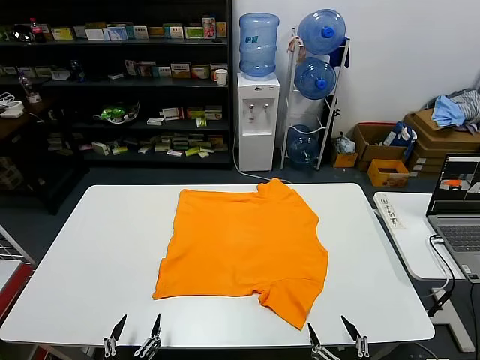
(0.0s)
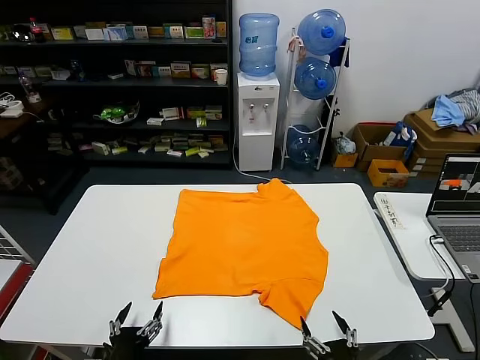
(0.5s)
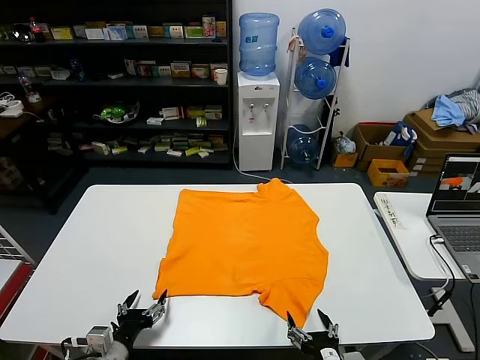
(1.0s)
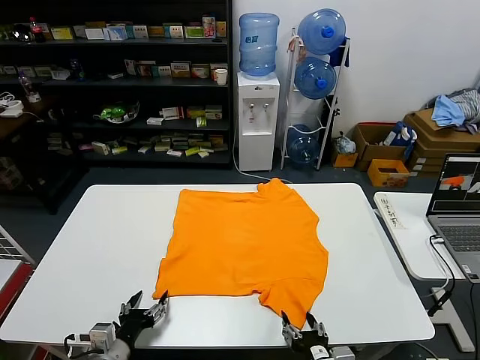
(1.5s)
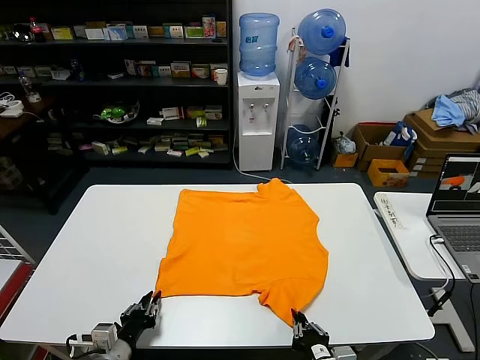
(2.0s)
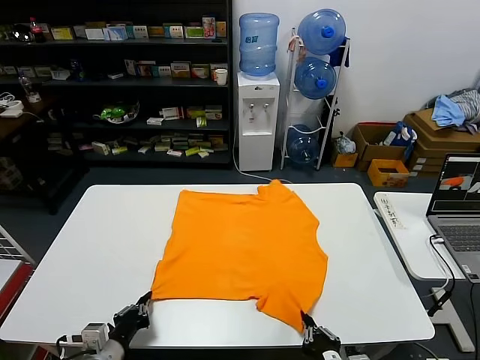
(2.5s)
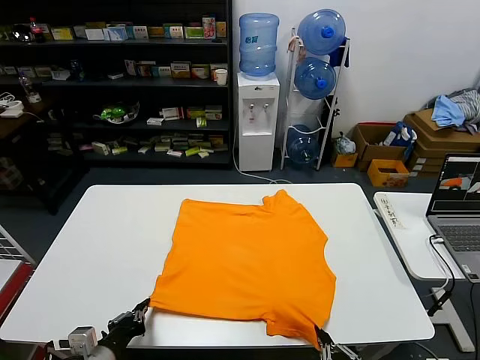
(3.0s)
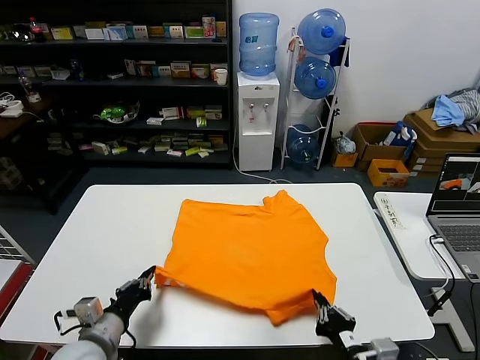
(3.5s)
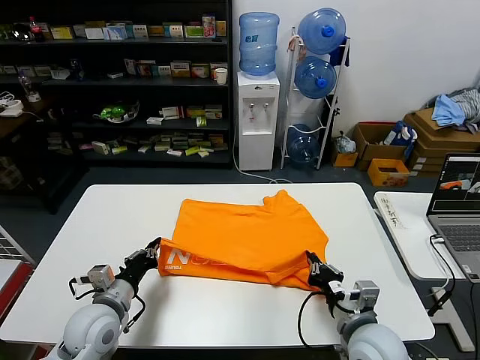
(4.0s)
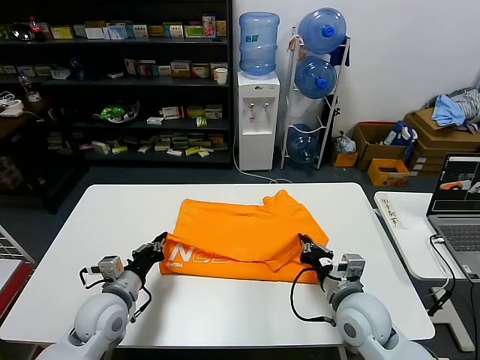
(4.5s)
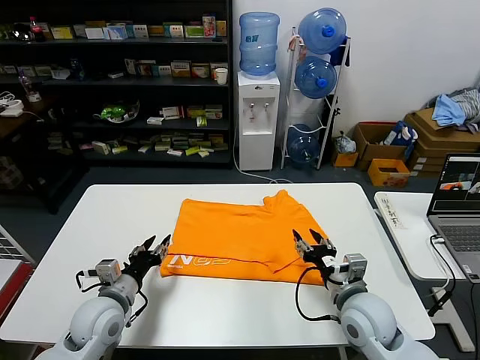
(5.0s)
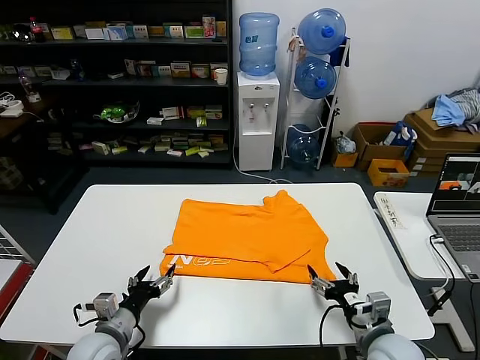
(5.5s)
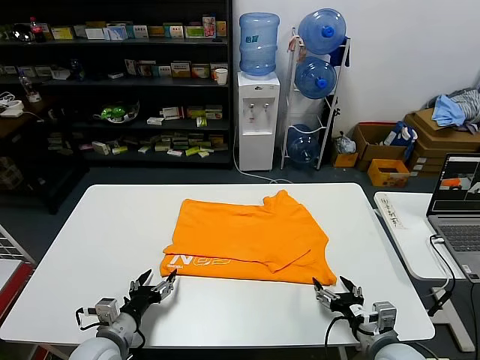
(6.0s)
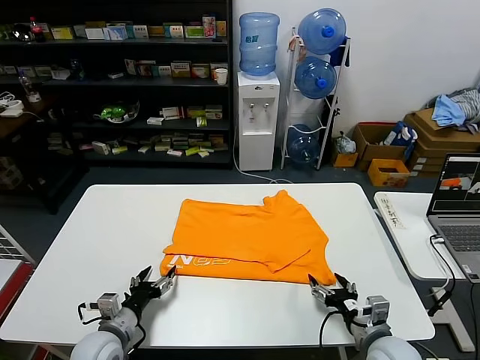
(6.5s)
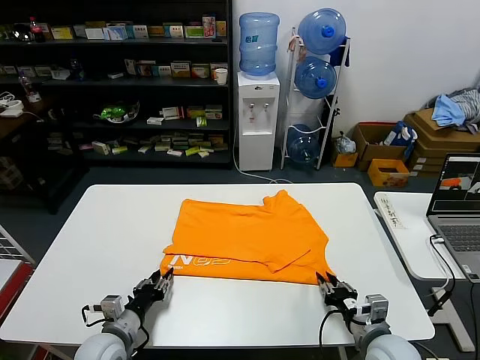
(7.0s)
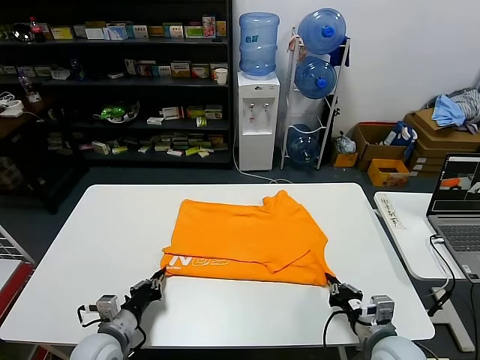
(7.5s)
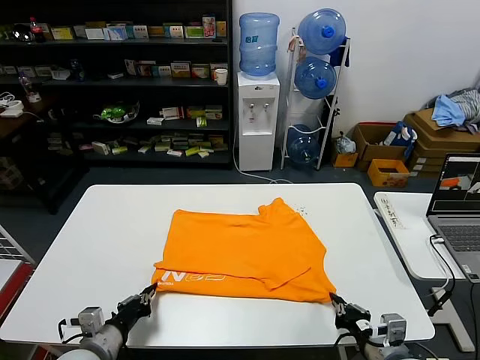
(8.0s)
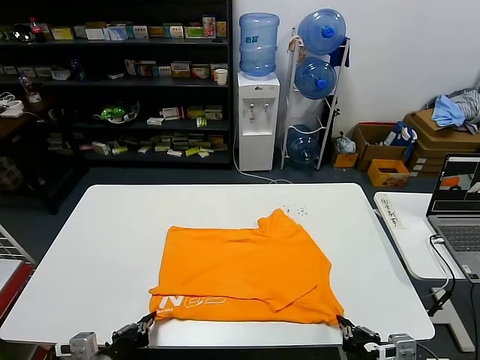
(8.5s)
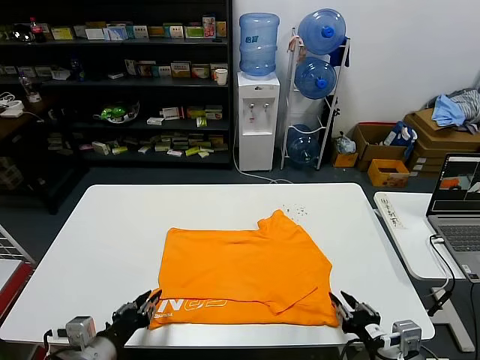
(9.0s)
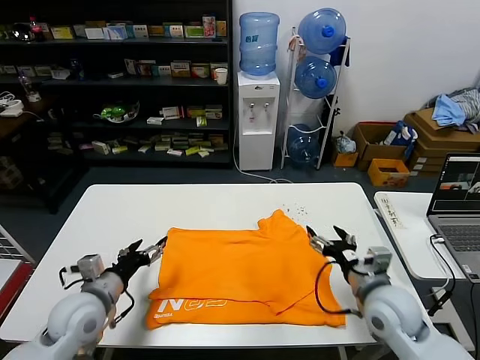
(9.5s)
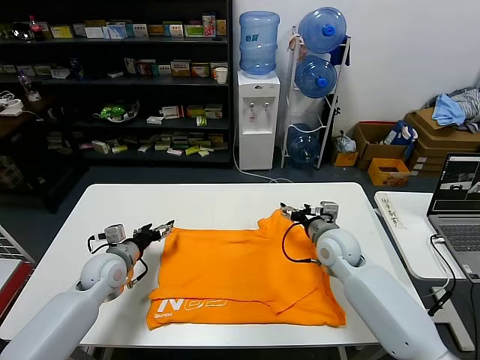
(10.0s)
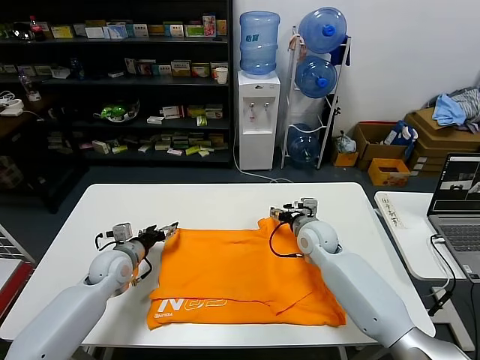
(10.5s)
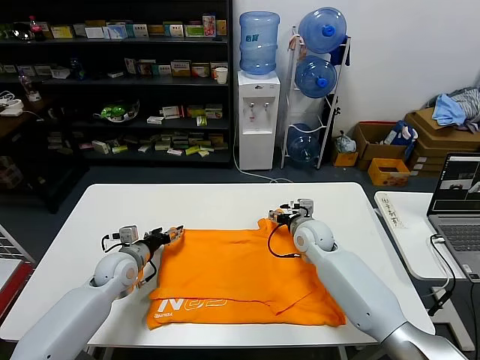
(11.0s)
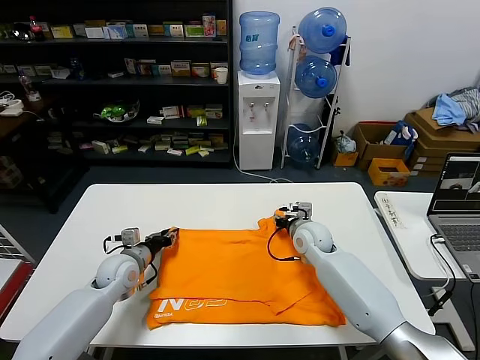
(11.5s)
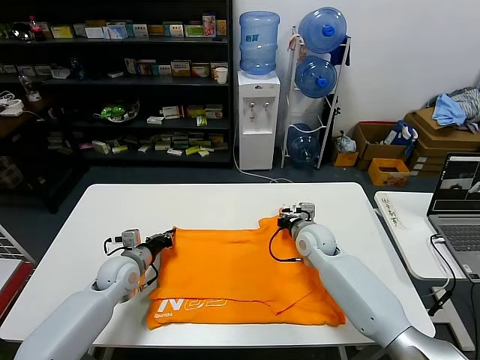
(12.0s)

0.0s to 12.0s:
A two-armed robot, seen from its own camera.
Task of the whole recording: fold and organize the clothes.
Step, 0.0s to 2.0s: use both grippers simultaneously to clamp the lower edge of the clothing fabric.
Step, 3.0s to 4.5s: use both grippers to drag the lower edge of the fabric forward and fold it over the upper edge.
Step, 5.0s to 9.0s: Drag the clothes downward with both gripper.
2.0s to 4.0s: Both grippers move forward and upward, roughly 10 cm.
4.0s to 6.0s: The left gripper moves downward, roughly 5 cm, and opens, while the right gripper travels to the right and downward by roughly 10 cm, and opens its fingers.
6.0s to 8.0s: The left gripper closes. The right gripper closes up.
8.0s to 10.0s: The two grippers go about 25 cm forward. The left gripper opens up; the right gripper opens.
10.0s to 12.0s: The left gripper closes its fingers. Meanwhile the right gripper changes place by some 5 cm, and closes its fingers.

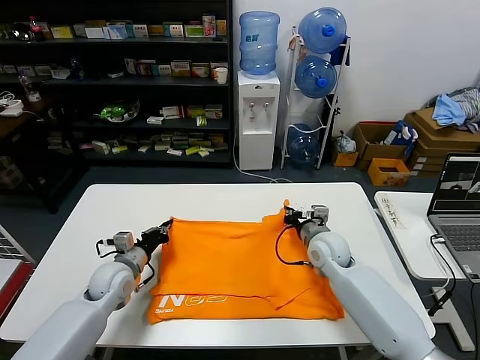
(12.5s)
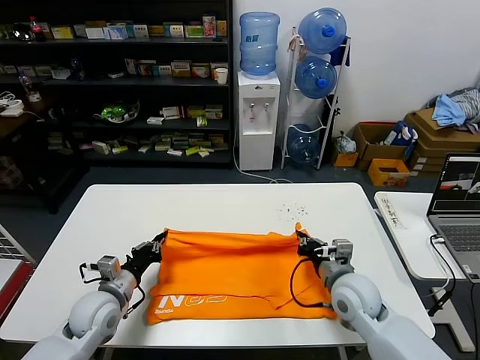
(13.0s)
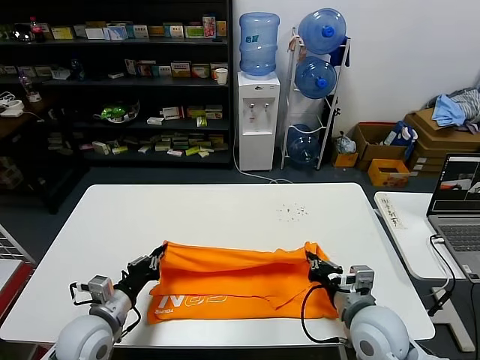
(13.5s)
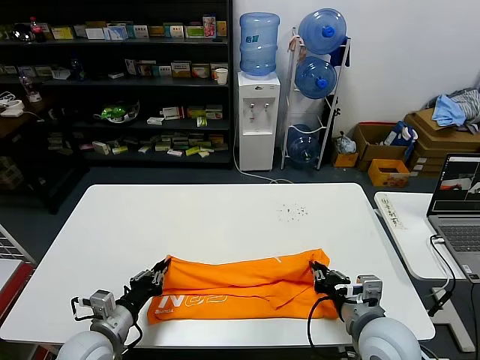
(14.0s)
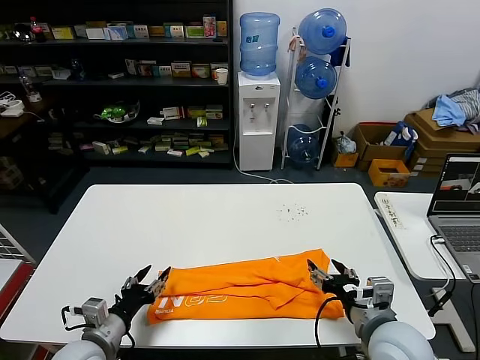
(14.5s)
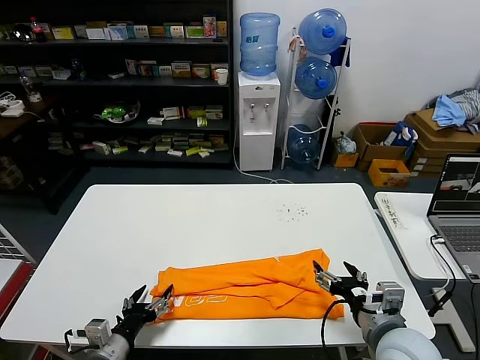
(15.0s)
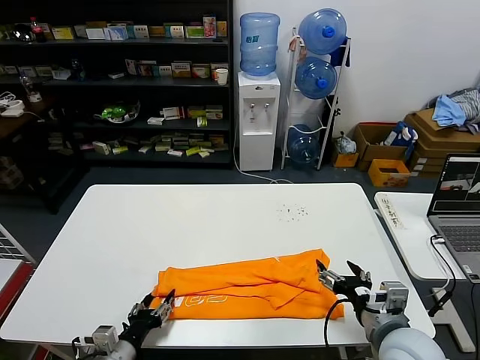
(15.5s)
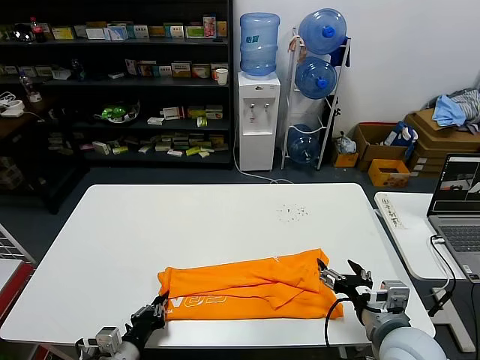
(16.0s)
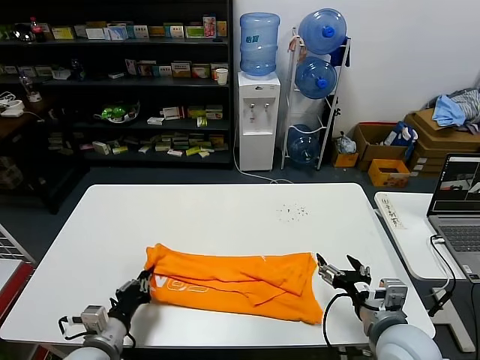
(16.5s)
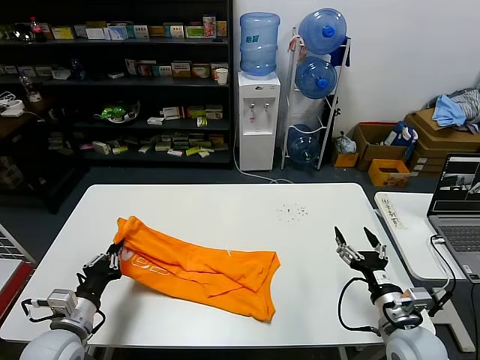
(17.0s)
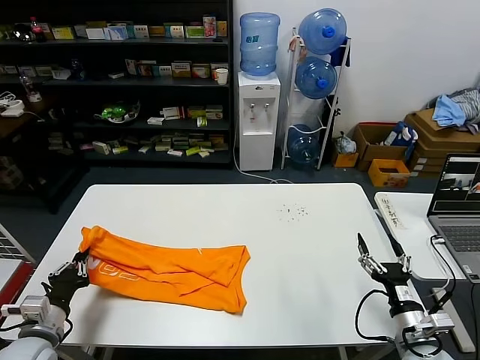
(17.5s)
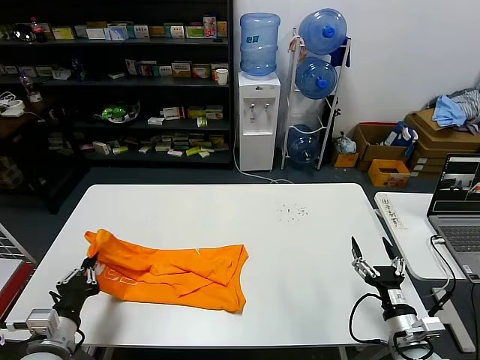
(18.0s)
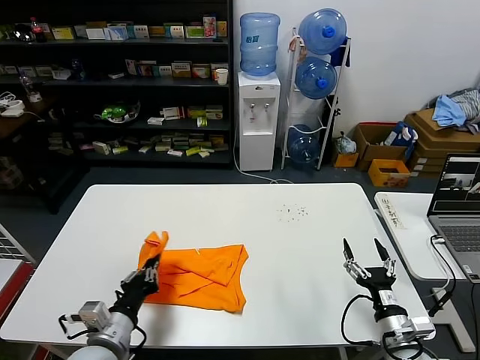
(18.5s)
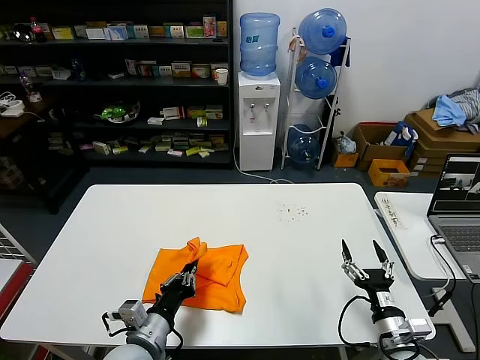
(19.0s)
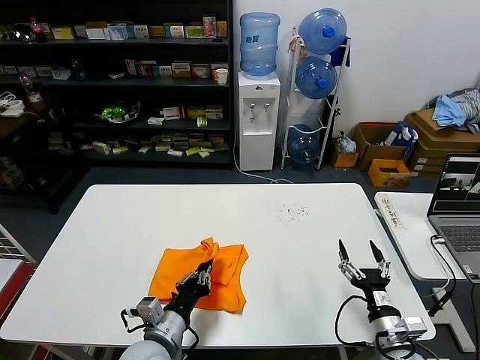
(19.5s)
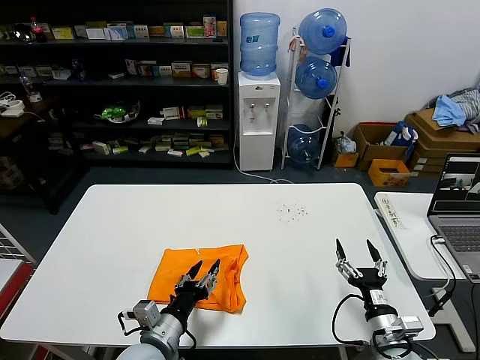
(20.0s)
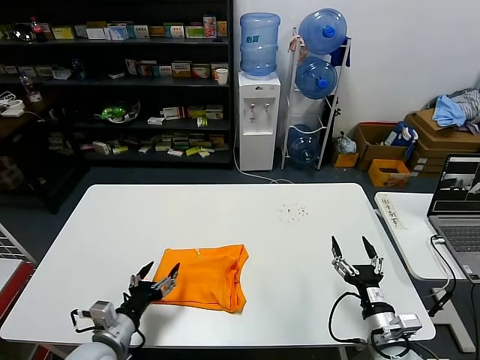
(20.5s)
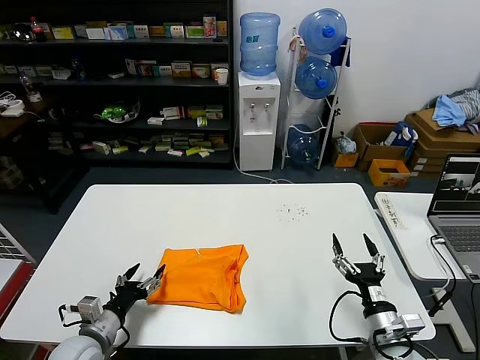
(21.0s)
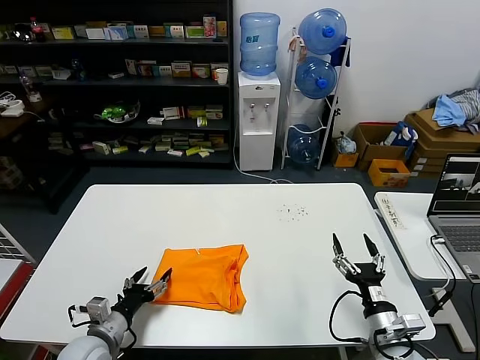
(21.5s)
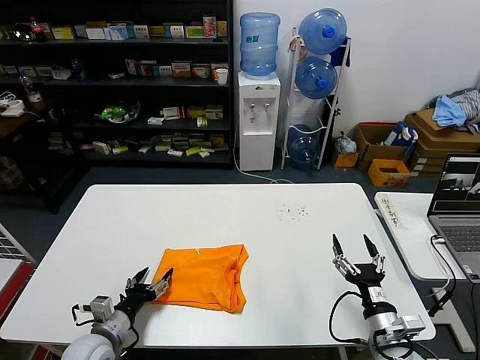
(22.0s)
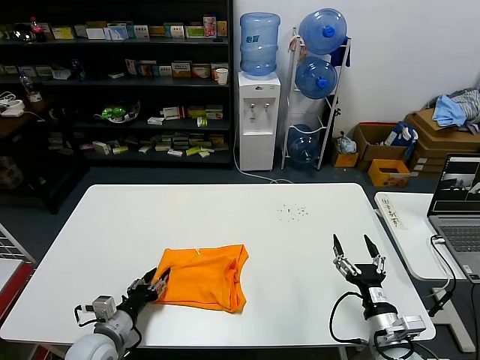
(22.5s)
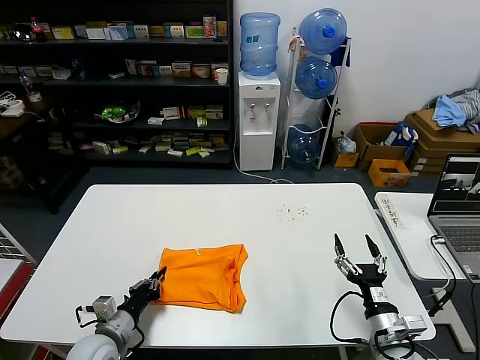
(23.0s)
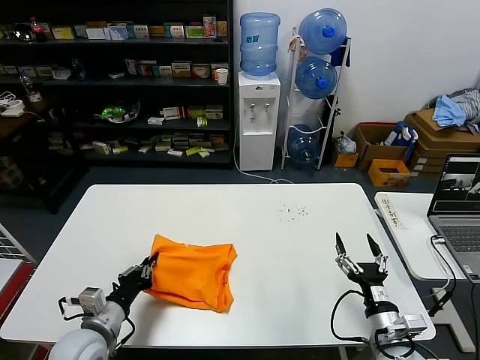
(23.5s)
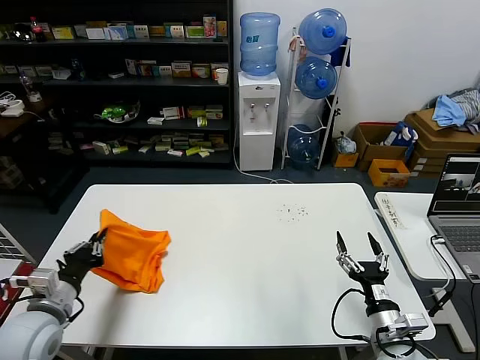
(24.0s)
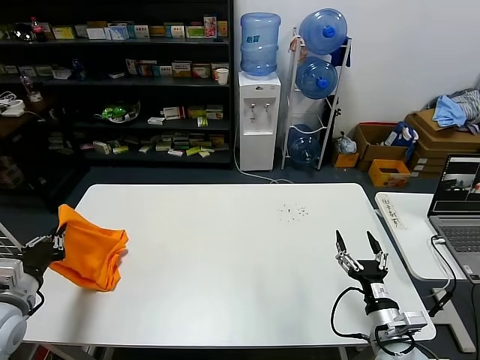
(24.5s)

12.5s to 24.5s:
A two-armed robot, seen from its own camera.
Task of the whole recording: fold and organize the clothes.
Step, 12.5s to 14.0s: use both grippers to drag the upper edge of the fabric backward and fold it over the lower edge.
Step, 14.5s to 16.0s: use the left gripper to clamp the left edge of the fabric.
Step, 16.5s to 20.0s: use the left gripper to drag the left edge of the fabric to the left and folds it over the right edge.
12.5s to 14.5s: Both grippers move backward, about 20 cm. The right gripper opens, while the left gripper opens up.
14.5s to 16.5s: The left gripper closes its fingers.
16.5s to 18.5s: The right gripper moves downward and to the right, approximately 10 cm. The left gripper moves upward, approximately 5 cm, and reaches approximately 10 cm to the left, then returns.
18.5s to 20.5s: The left gripper goes to the right and returns, some 10 cm each way, and opens its fingers.
20.5s to 22.5s: The left gripper shifts by some 5 cm.
22.5s to 24.5s: The left gripper heads upward and to the left, covering roughly 20 cm, and closes up.

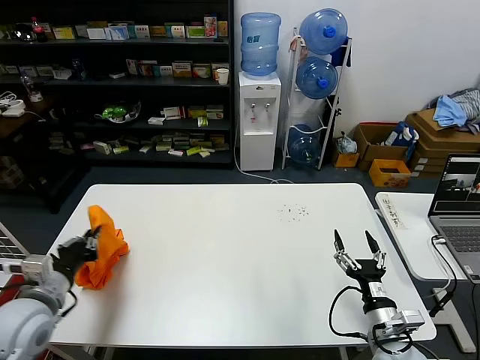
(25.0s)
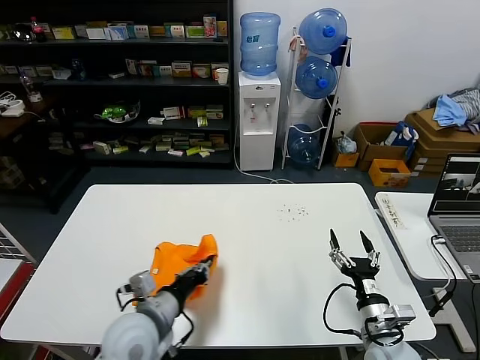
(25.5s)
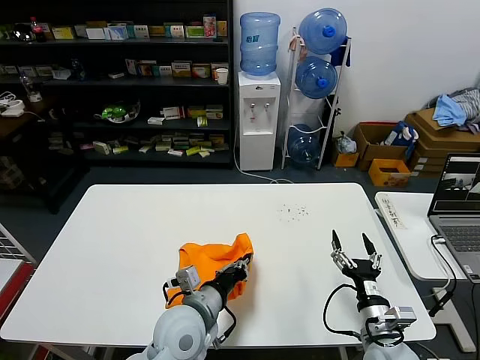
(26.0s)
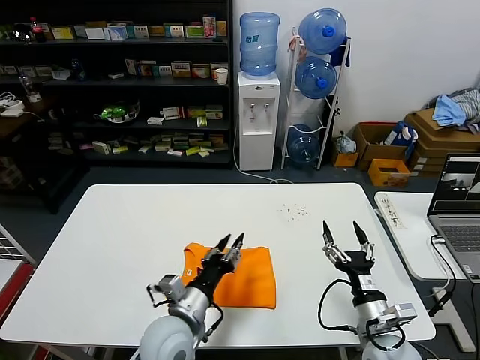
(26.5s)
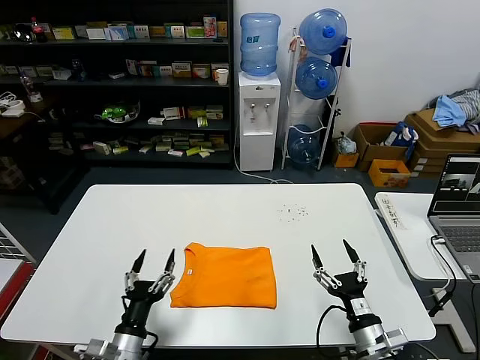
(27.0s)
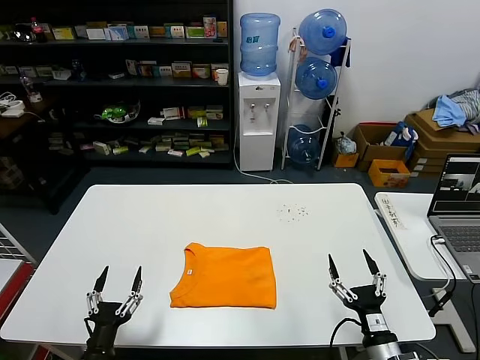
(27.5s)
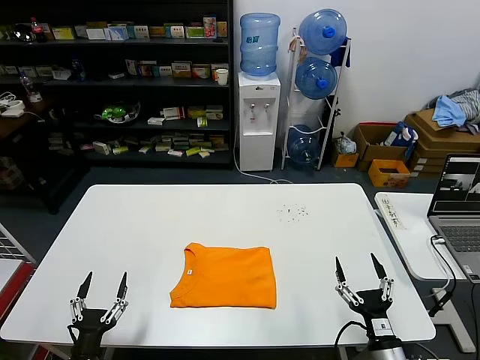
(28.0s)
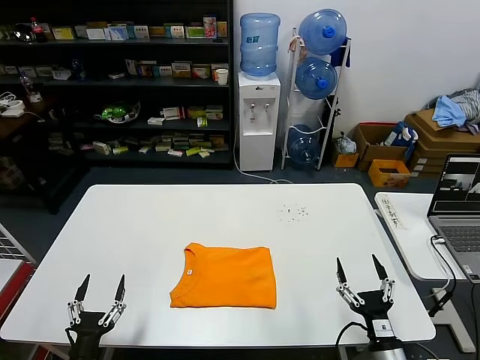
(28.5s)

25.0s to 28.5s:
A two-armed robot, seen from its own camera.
Task of the whole recording: fold and organize the clothes.
25.0s to 27.0s: The left gripper travels to the right and downward by roughly 25 cm, and opens.
27.0s to 28.5s: The right gripper moves roughly 5 cm; the left gripper travels to the left, backward and downward by roughly 15 cm.
